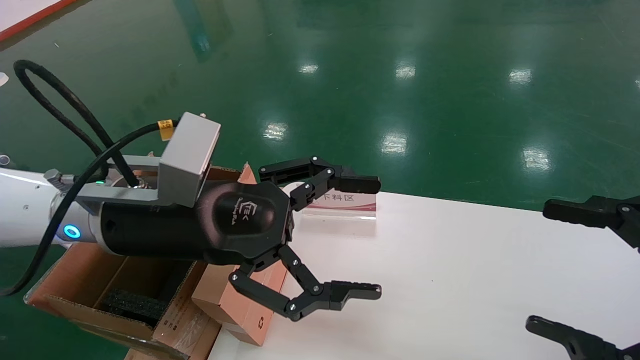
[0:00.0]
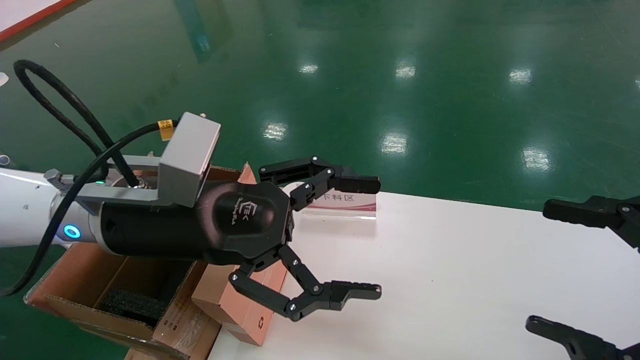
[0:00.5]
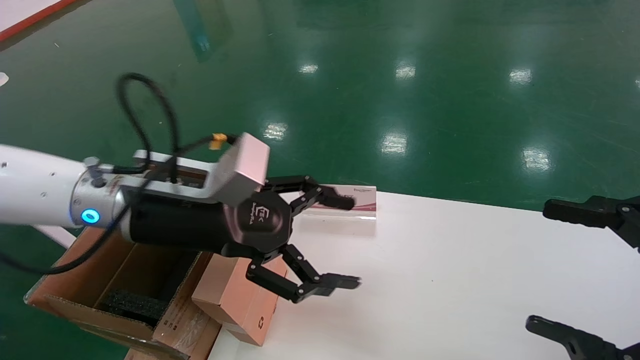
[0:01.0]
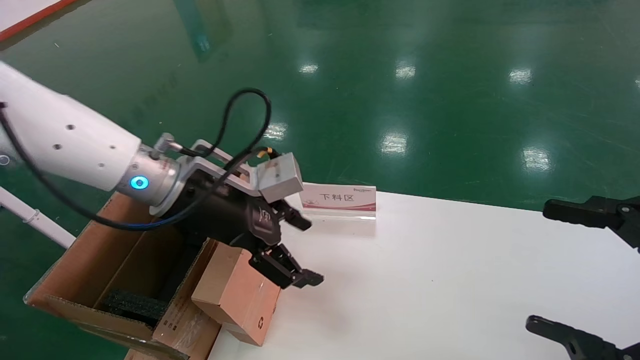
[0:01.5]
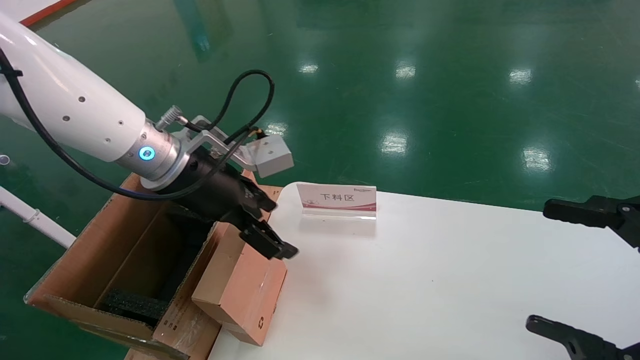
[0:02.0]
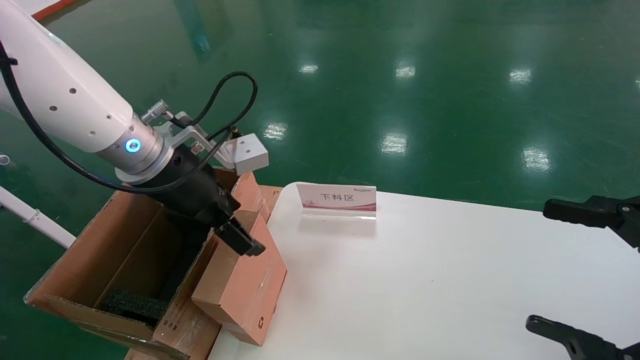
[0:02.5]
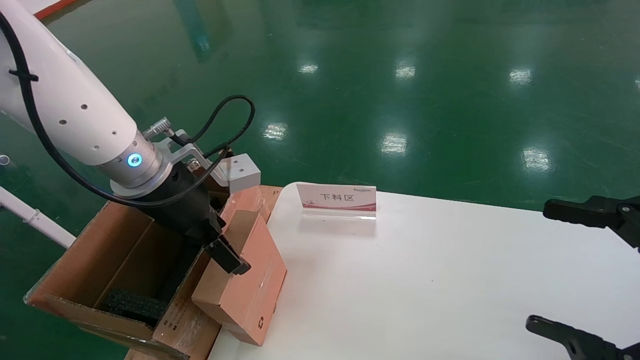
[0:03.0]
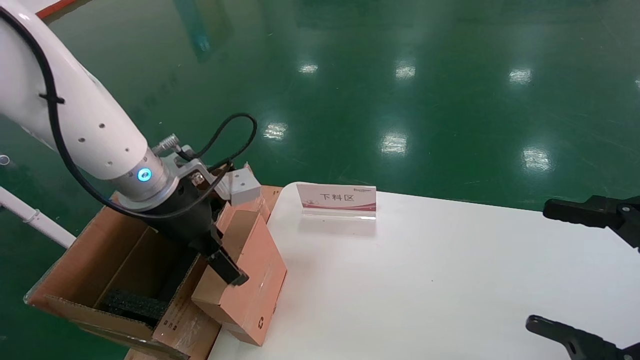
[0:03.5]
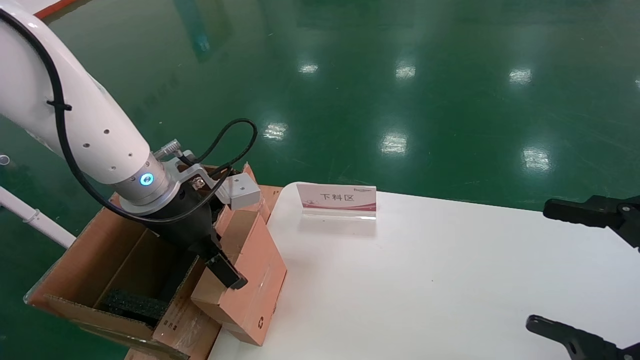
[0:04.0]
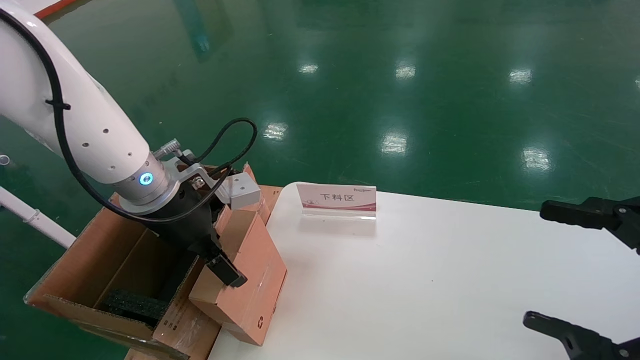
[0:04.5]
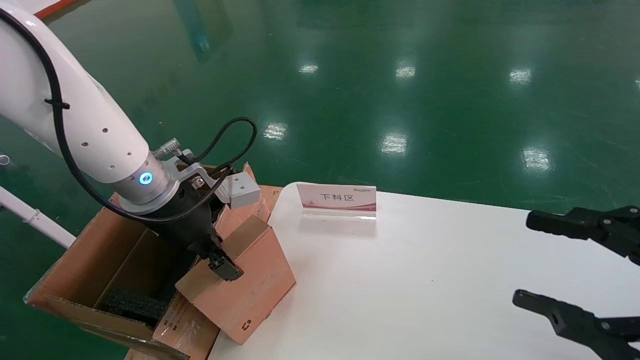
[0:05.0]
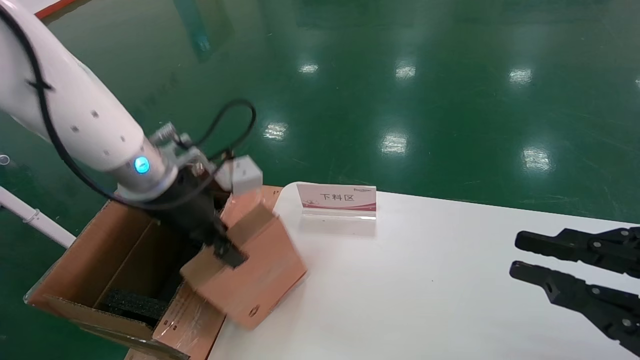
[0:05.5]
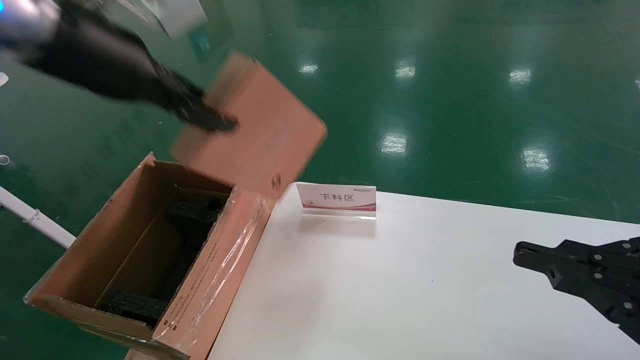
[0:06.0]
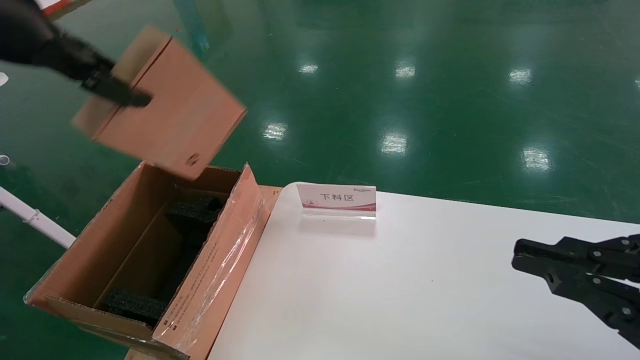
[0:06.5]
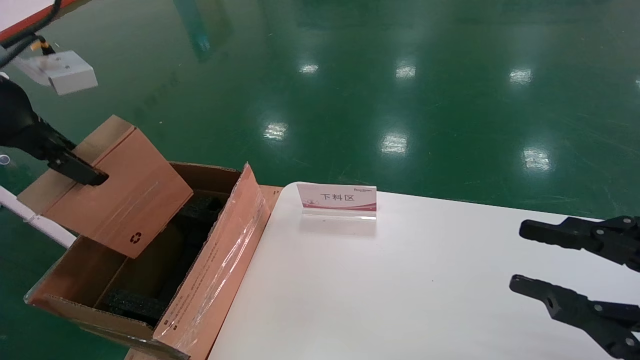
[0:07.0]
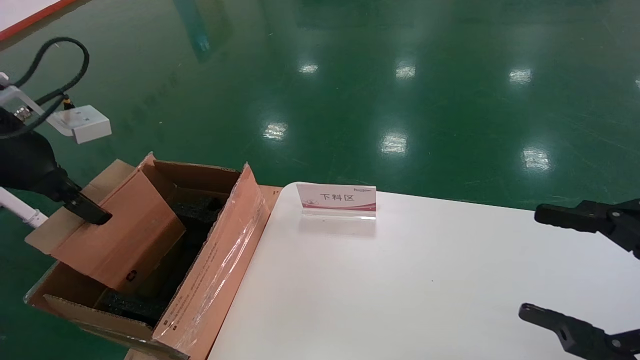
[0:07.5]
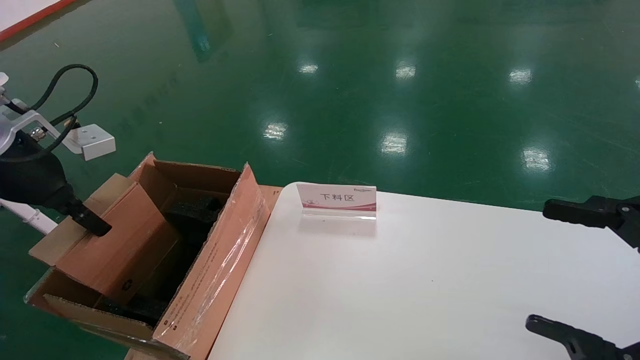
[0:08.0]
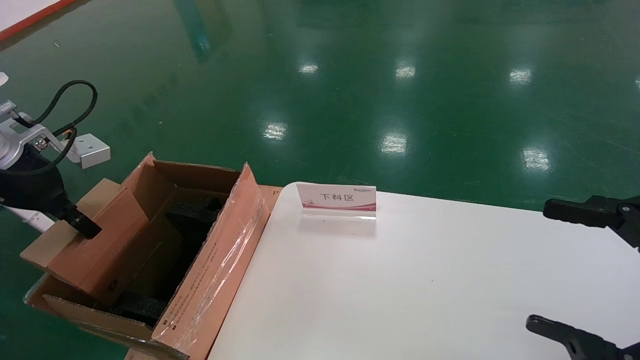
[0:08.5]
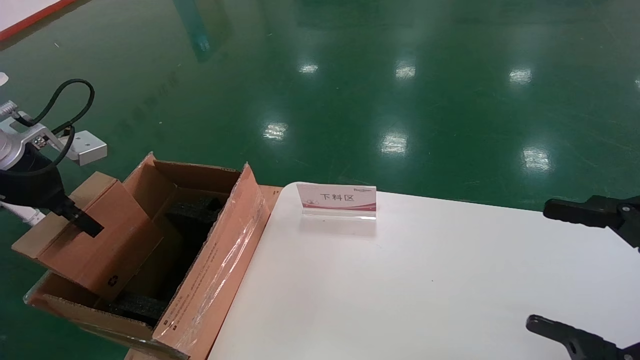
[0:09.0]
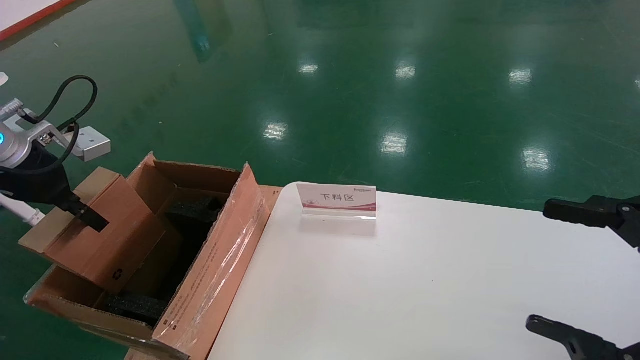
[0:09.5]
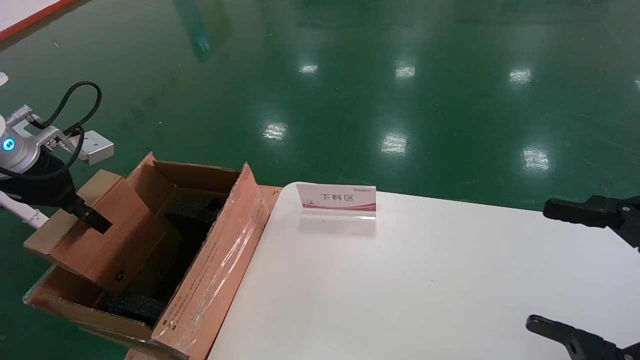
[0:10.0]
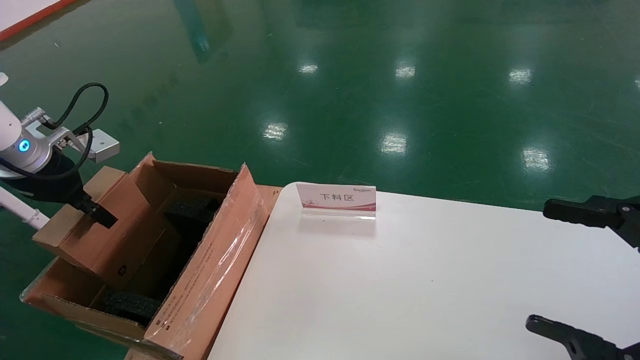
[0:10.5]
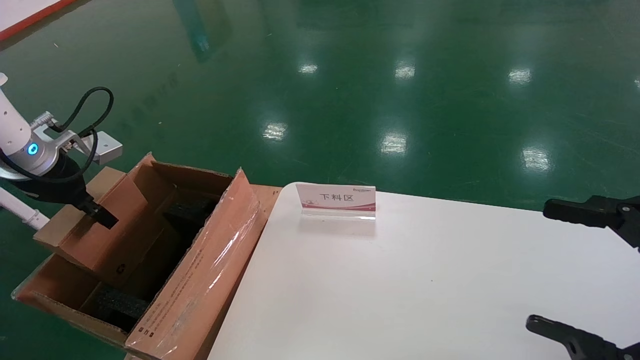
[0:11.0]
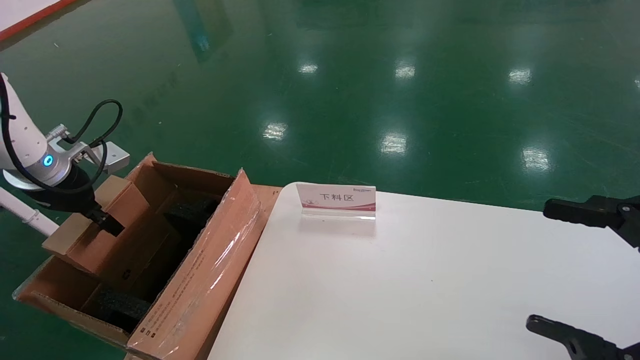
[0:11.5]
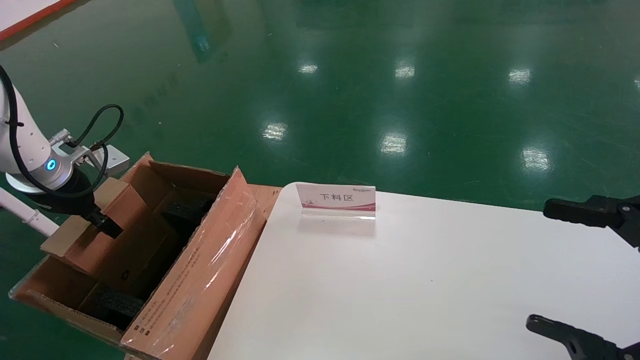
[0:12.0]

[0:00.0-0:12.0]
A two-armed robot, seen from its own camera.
Task of the whole recording: pick up the small cardboard box and load it into the large cardboard box.
Step, 0:01.5 to 0:04.5: Pick up the mouse and power cord box.
0:00.0 to 0:02.0: The left gripper goes approximately 10 cm forward.
0:04.0 to 0:06.0: The left gripper heads upward, covering about 15 cm, and closes its fingers. Meanwhile the right gripper closes its fingers.
0:06.0 to 0:08.0: The right gripper opens its fingers, while the left gripper heads to the left and downward, covering roughly 15 cm.
0:08.0 to 0:10.0: The left gripper moves approximately 5 cm.
0:10.0 to 0:12.0: The left gripper ends up some 5 cm from where it was.

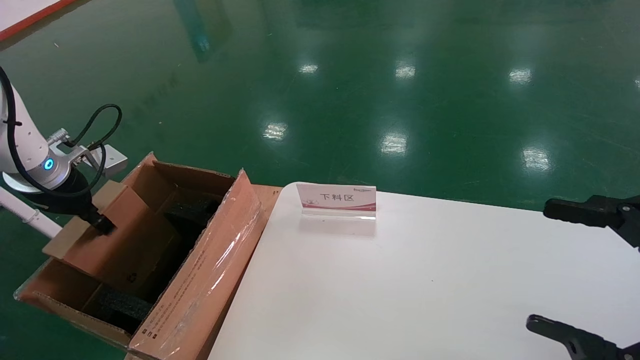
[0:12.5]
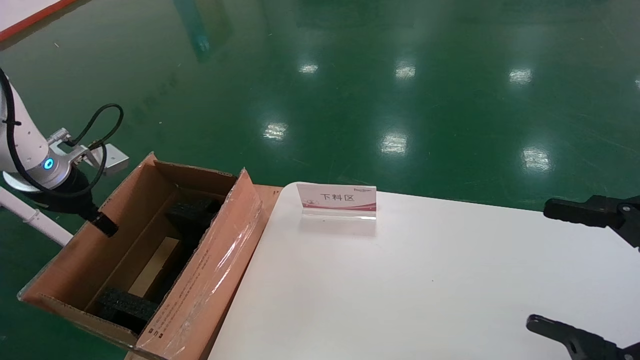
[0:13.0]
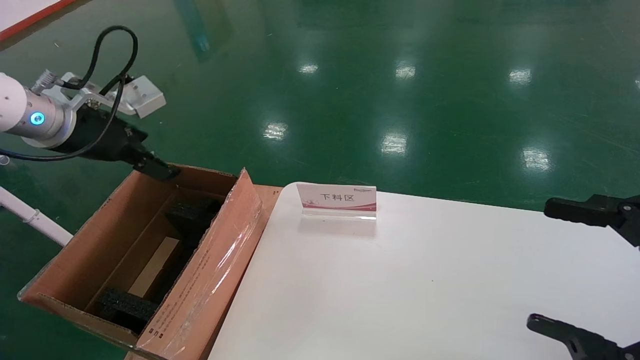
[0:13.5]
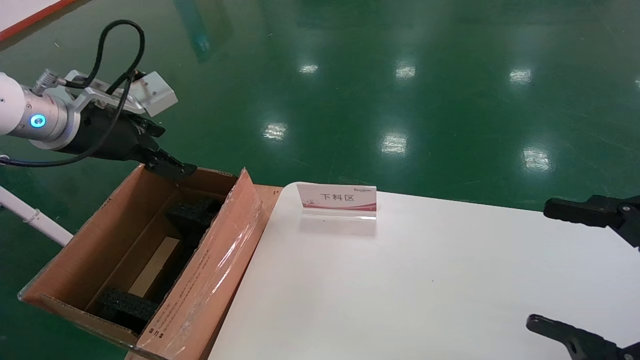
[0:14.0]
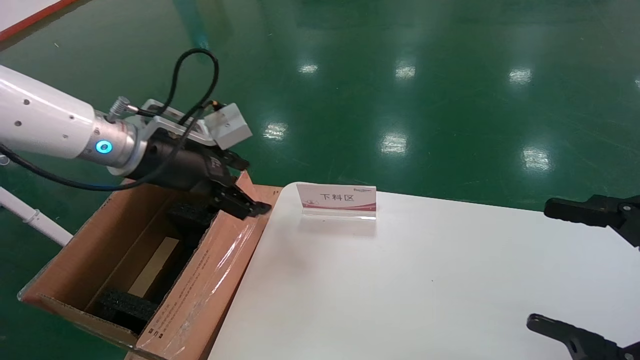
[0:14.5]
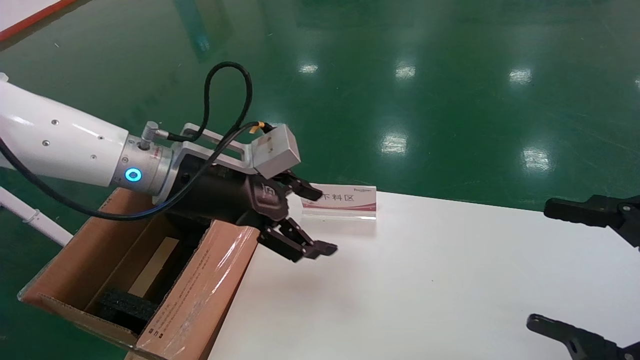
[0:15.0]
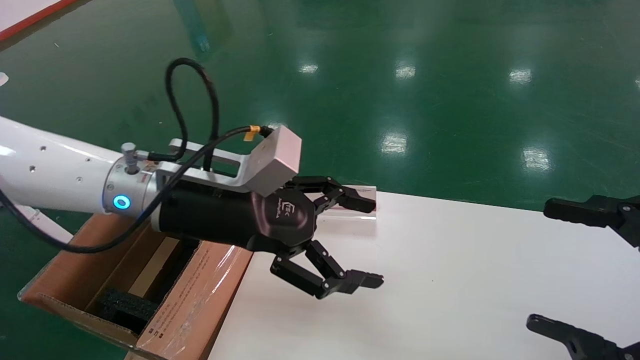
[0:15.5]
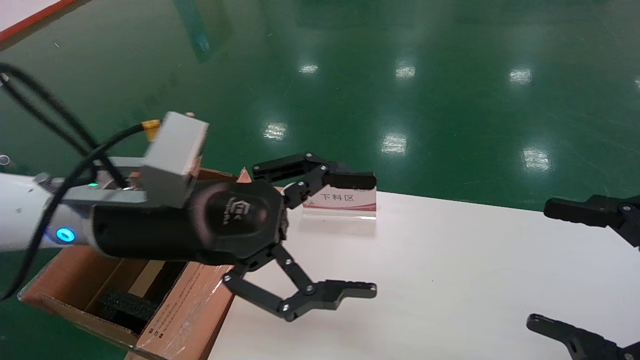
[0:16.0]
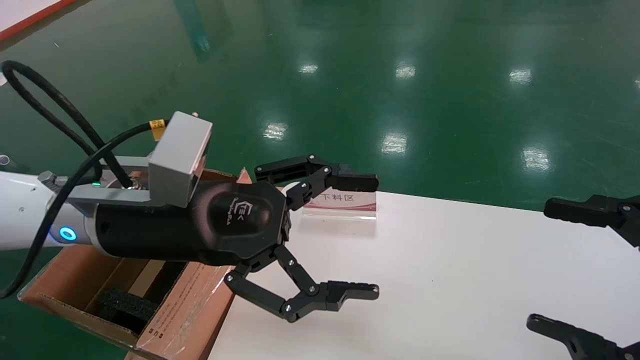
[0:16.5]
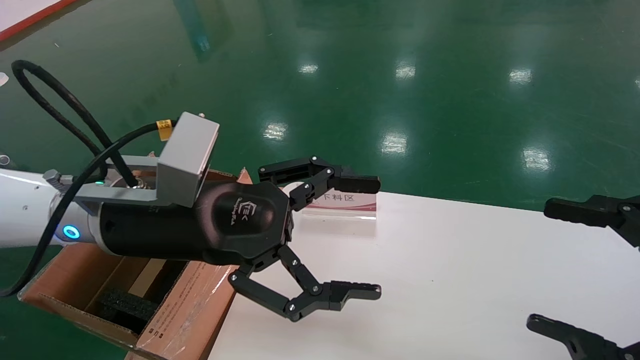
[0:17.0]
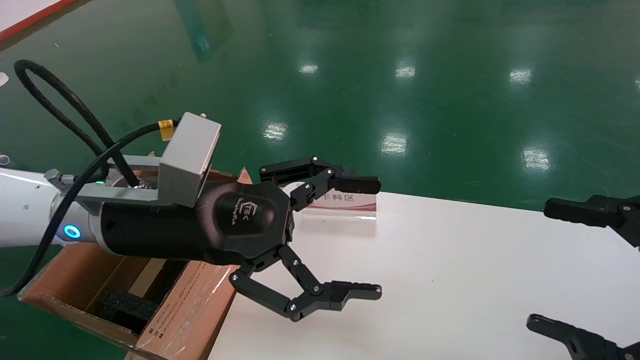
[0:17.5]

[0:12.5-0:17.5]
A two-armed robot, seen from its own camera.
Task of the whole recording: pick up the small cardboard box and load it into the large cardboard box.
0:12.5 to 0:15.0: The left gripper shifts approximately 25 cm to the right, and opens up.
0:15.0 to 0:17.5: The left gripper is displaced backward by approximately 5 cm.
